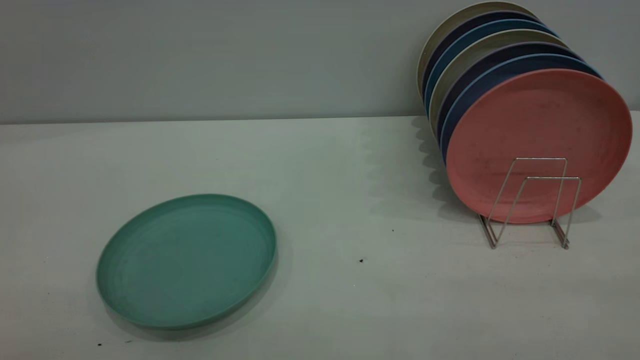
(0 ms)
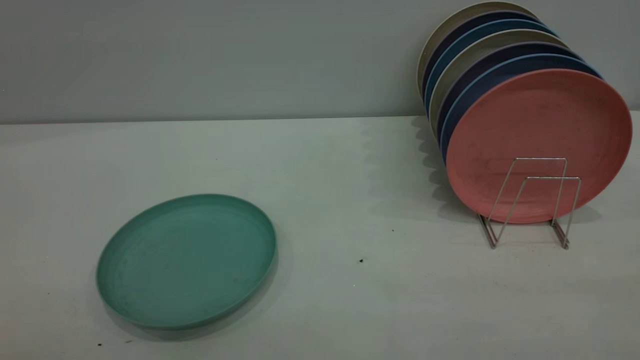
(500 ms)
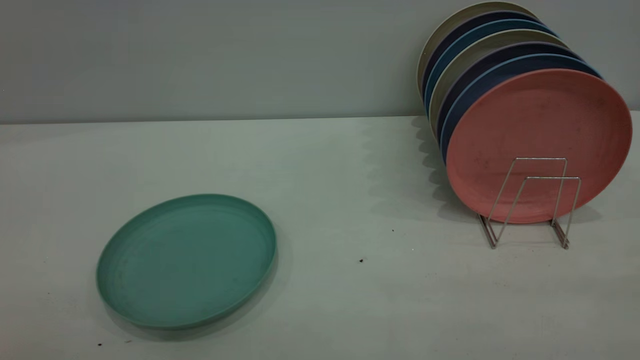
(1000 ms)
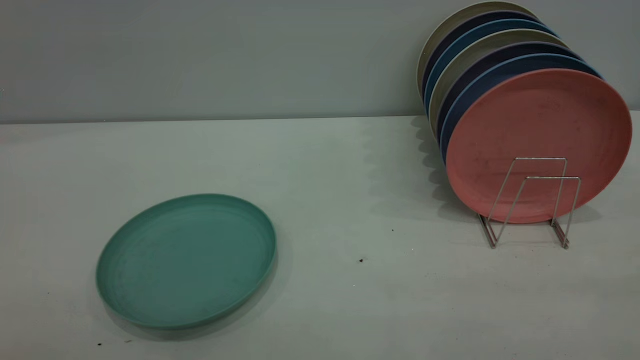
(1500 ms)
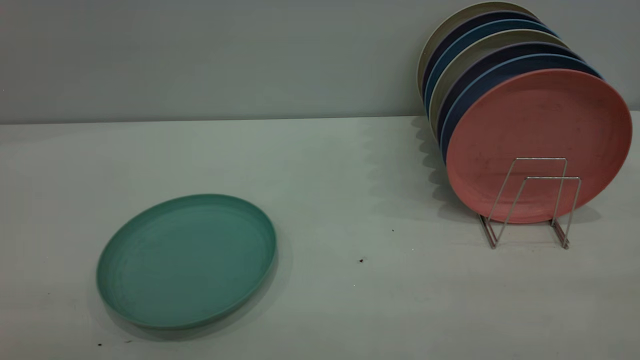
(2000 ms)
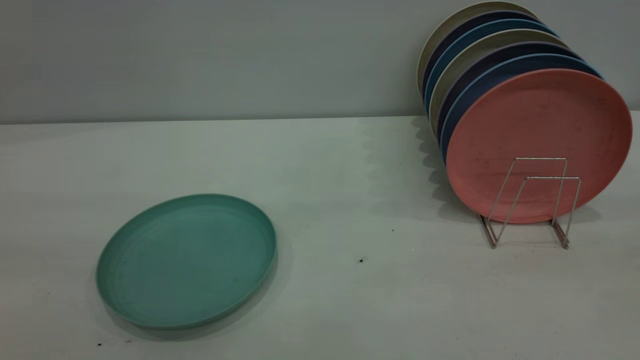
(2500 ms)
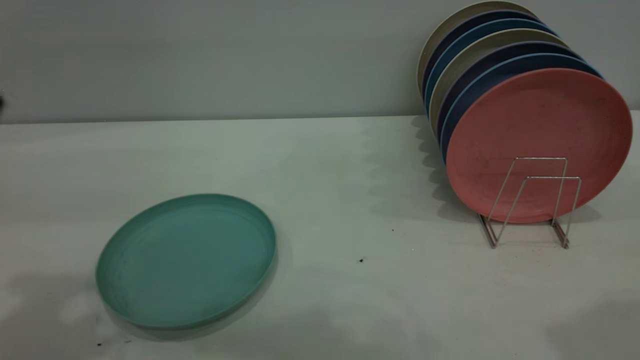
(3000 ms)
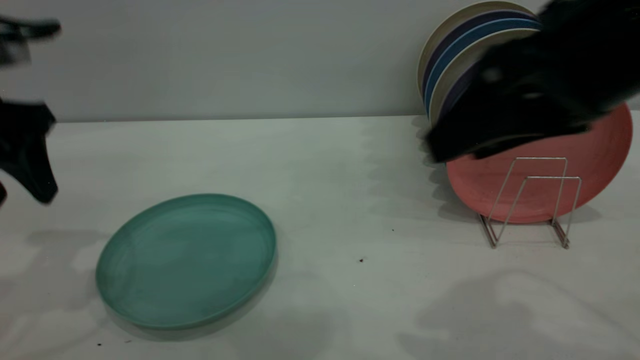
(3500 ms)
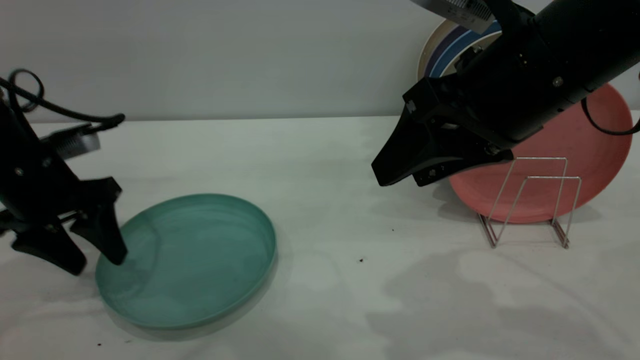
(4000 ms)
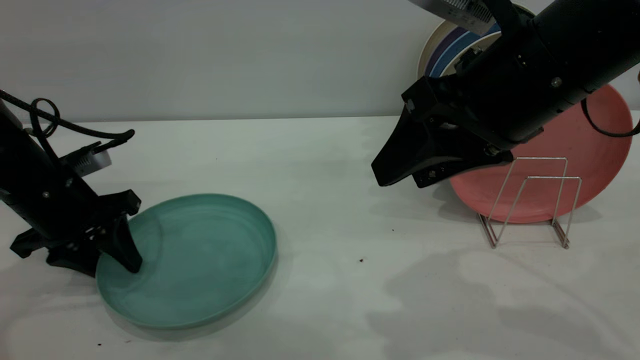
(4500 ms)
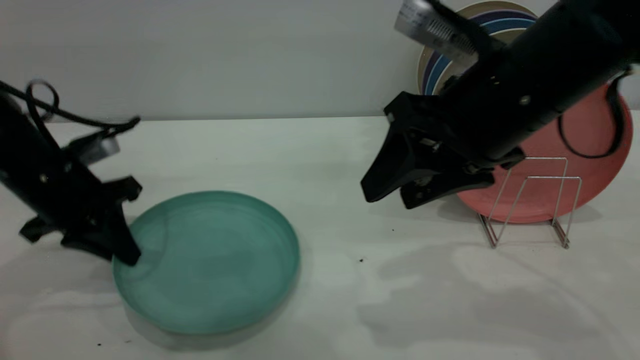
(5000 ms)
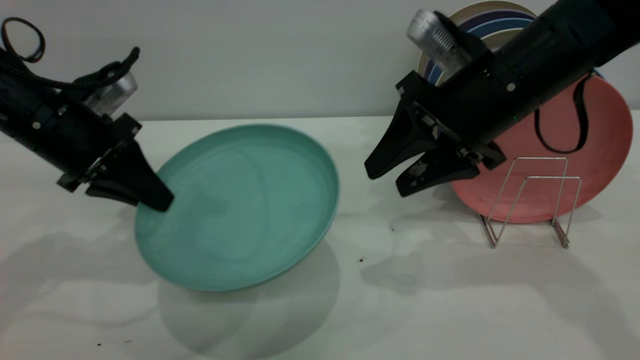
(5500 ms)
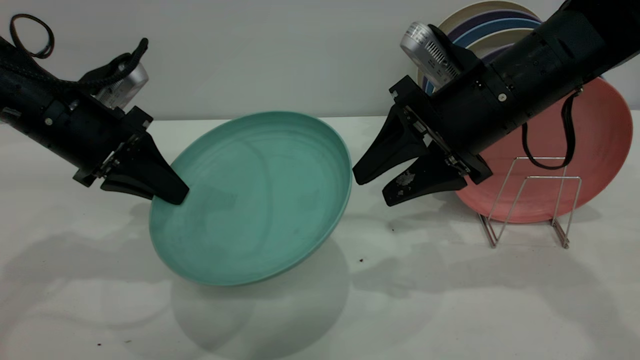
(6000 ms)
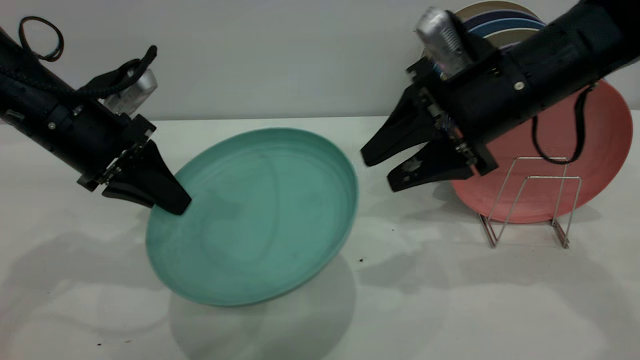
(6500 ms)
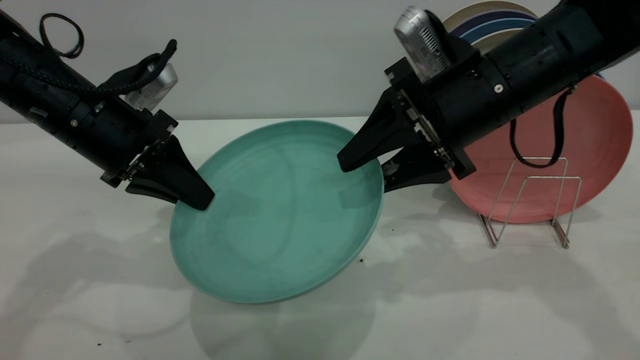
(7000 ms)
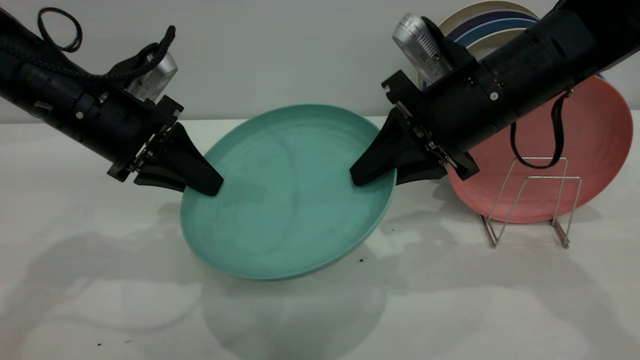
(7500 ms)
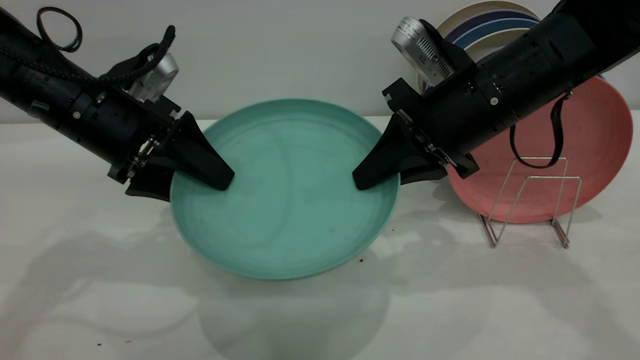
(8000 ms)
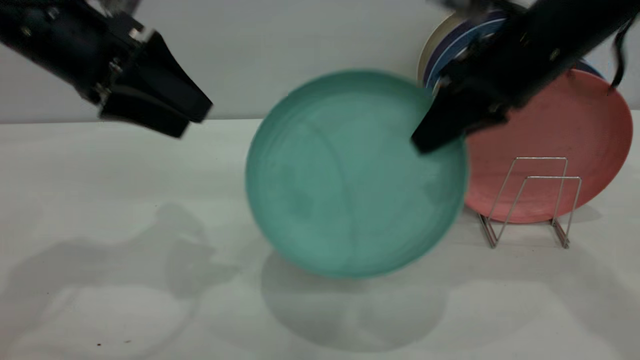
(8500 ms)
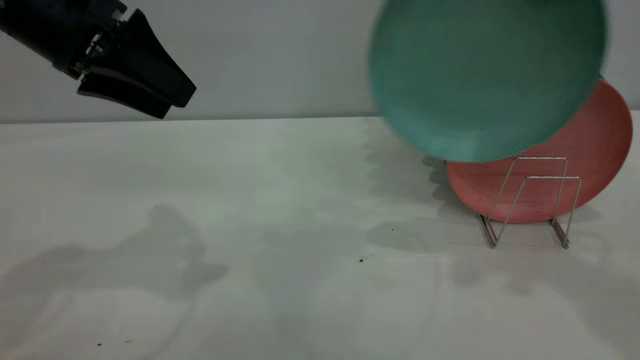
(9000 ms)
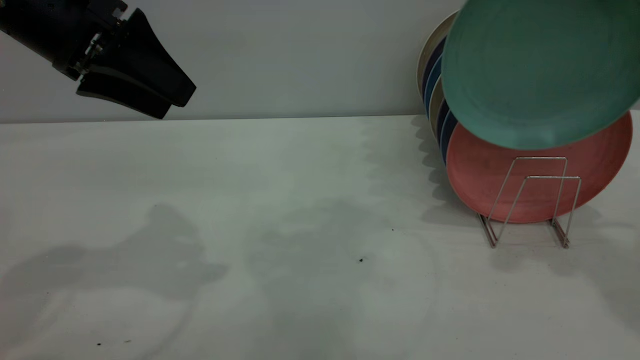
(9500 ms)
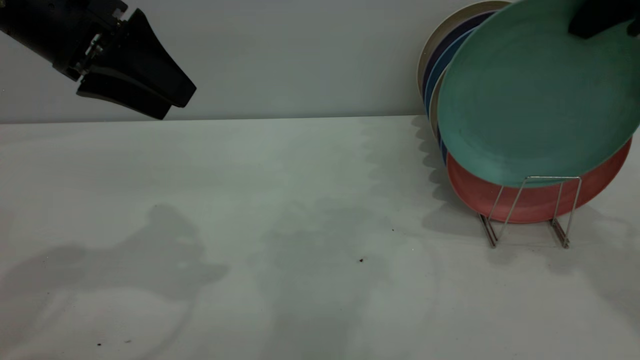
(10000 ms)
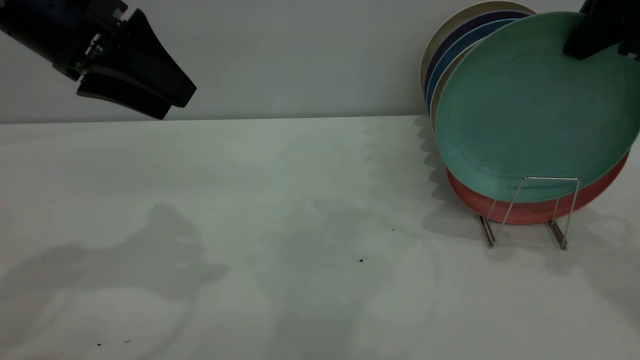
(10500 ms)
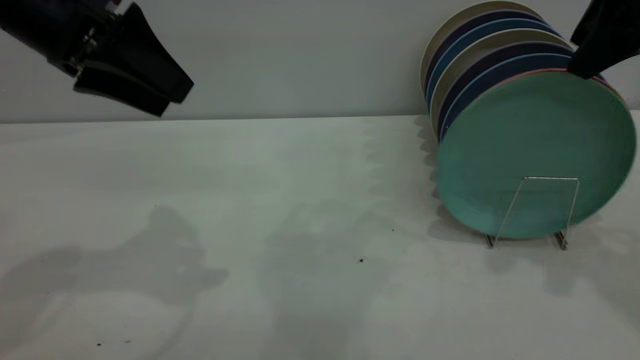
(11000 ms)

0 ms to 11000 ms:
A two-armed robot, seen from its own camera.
Task of the whole recording: the left gripper grasp the green plate, the left gripper pass the green plate to the right gripper, and the right gripper place the green plate on the plate rack.
Step, 0 ms to 5000 ms: Pick up the plate with the left gripper.
Step, 5500 ms to 8000 ms: Pass the plate from the left gripper to the right gripper.
2000 ms to 3500 ms: The right gripper is displaced forward and to the left by roughly 30 cm, and opens. The left gripper is displaced forward by about 35 cm.
3500 ms to 5500 ms: The right gripper goes some 15 cm forward and downward. The left gripper is displaced downward by roughly 5 cm, and closes up.
5500 ms to 7500 ms: The right gripper closes its fingers.
7500 ms to 9000 ms: The left gripper moves upward, roughly 10 cm, and opens, while the right gripper heads upward and to the right, covering some 20 cm.
9000 ms to 11000 ms: The right gripper opens up.
